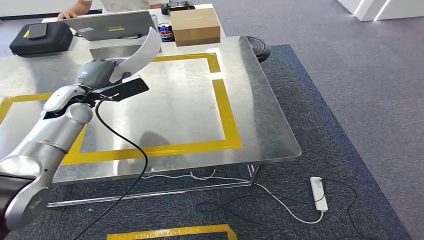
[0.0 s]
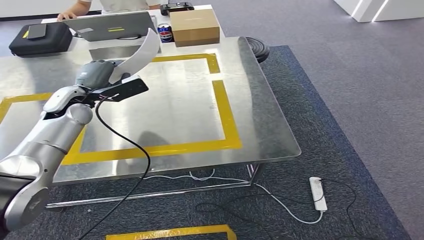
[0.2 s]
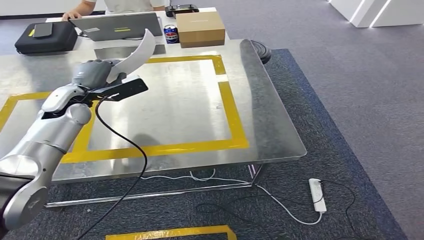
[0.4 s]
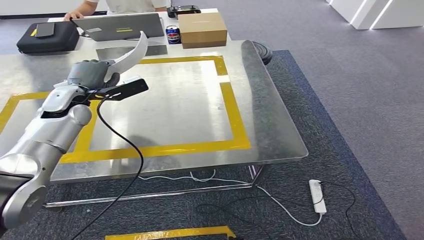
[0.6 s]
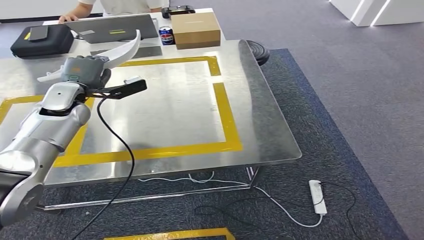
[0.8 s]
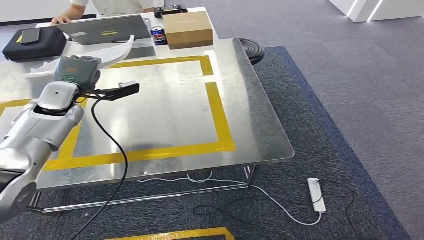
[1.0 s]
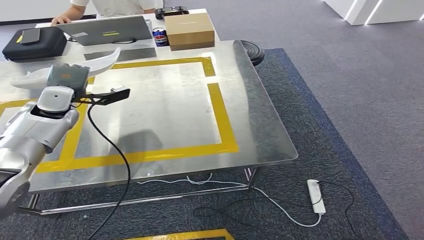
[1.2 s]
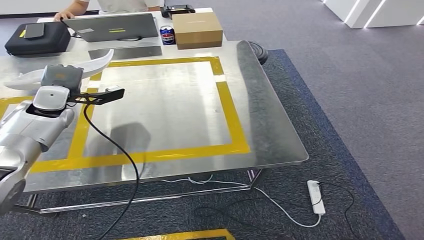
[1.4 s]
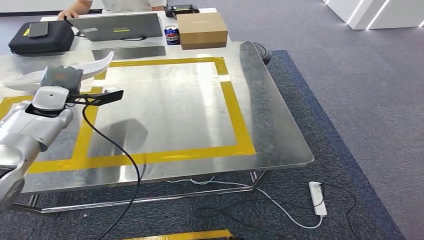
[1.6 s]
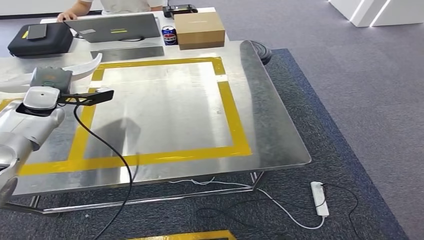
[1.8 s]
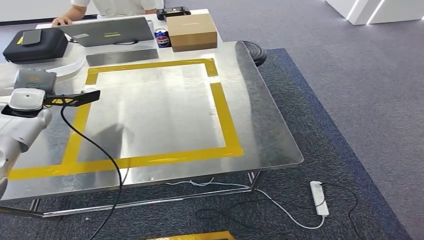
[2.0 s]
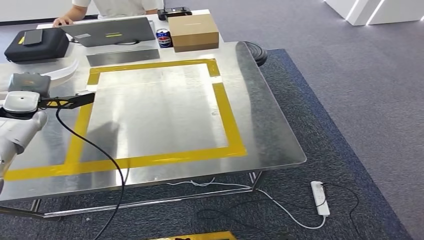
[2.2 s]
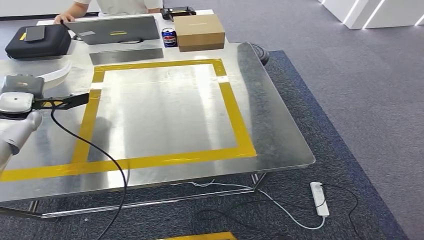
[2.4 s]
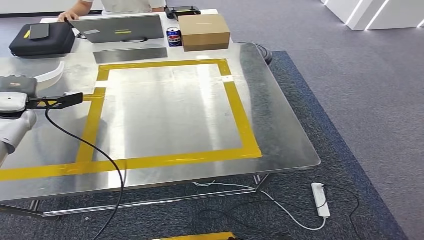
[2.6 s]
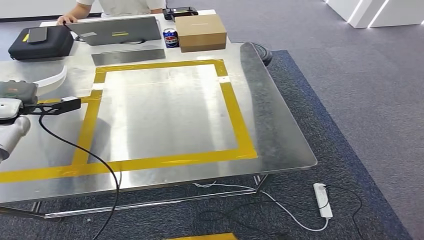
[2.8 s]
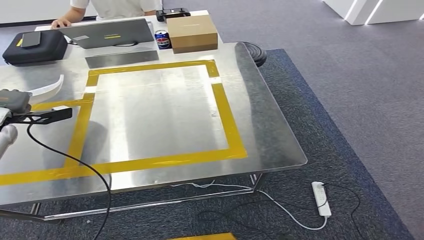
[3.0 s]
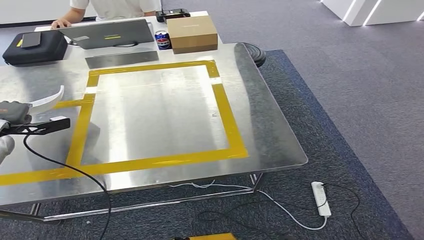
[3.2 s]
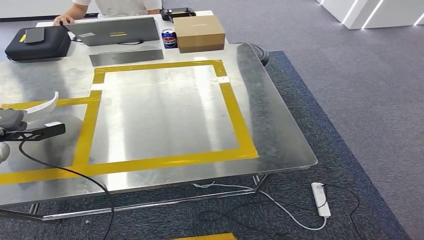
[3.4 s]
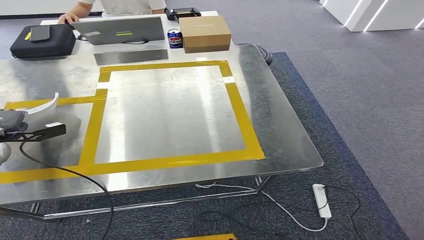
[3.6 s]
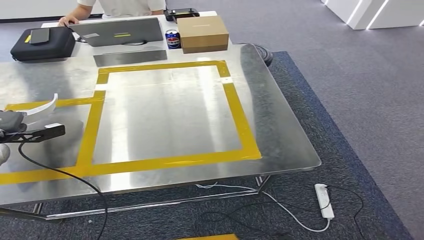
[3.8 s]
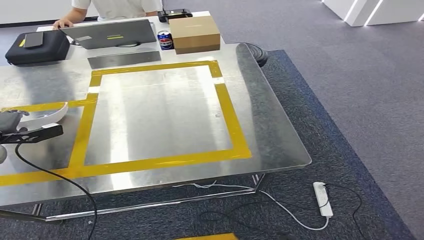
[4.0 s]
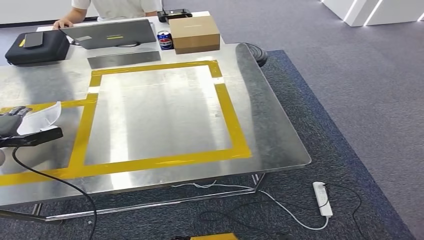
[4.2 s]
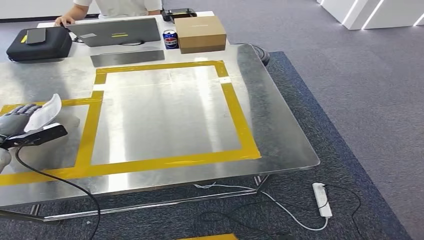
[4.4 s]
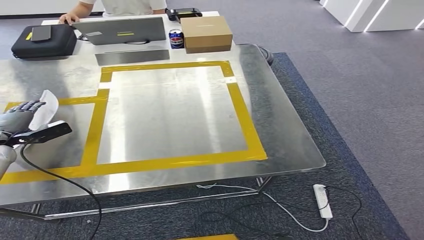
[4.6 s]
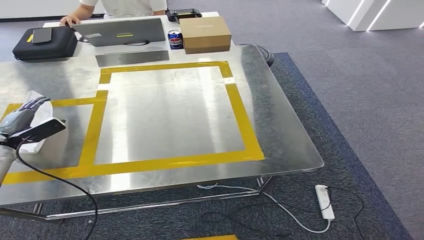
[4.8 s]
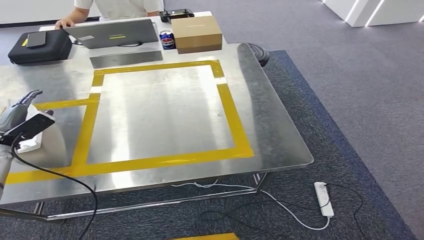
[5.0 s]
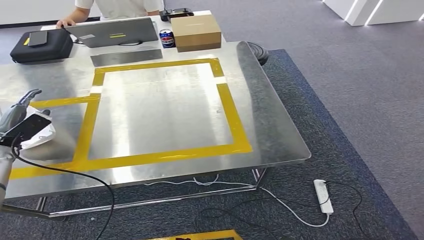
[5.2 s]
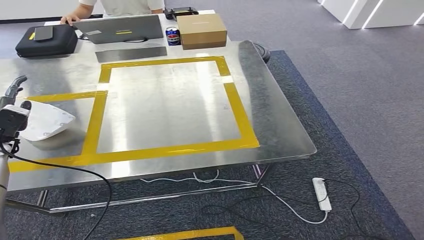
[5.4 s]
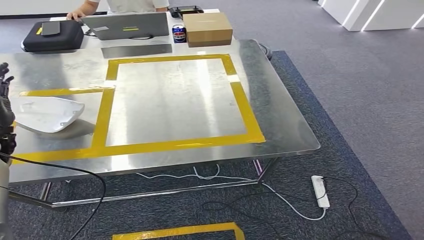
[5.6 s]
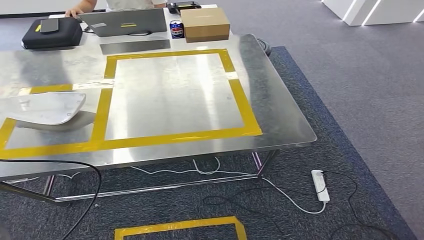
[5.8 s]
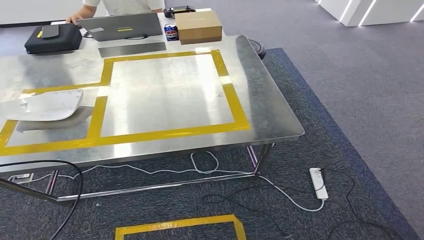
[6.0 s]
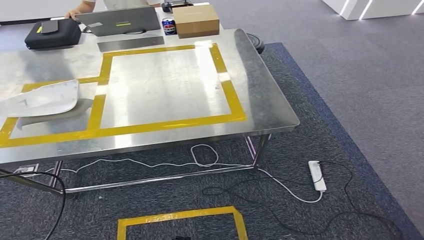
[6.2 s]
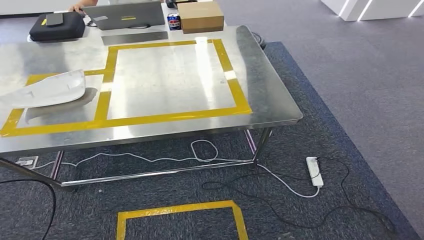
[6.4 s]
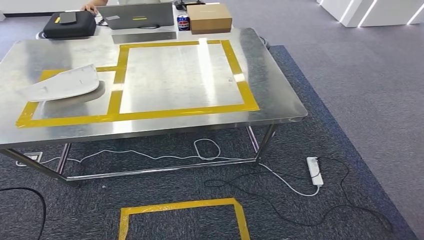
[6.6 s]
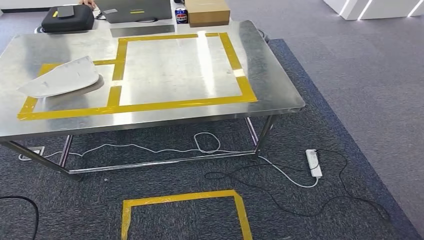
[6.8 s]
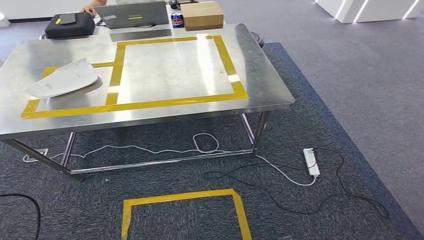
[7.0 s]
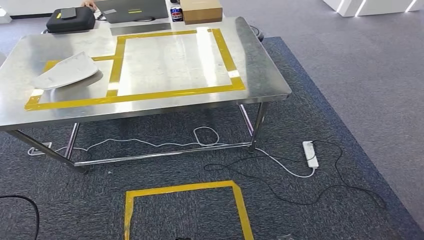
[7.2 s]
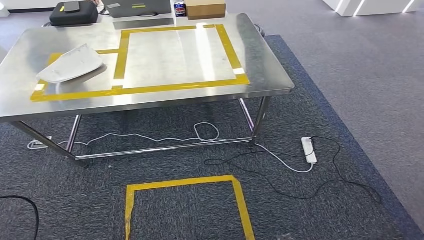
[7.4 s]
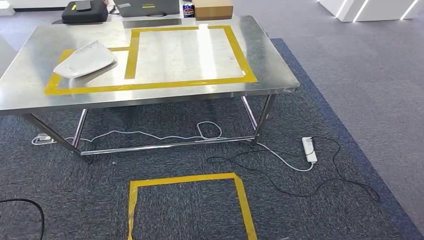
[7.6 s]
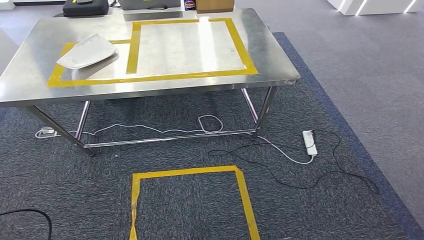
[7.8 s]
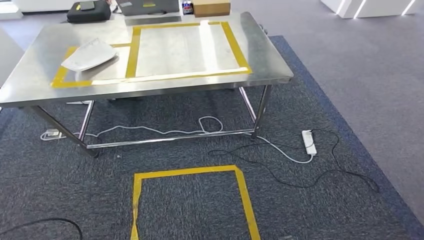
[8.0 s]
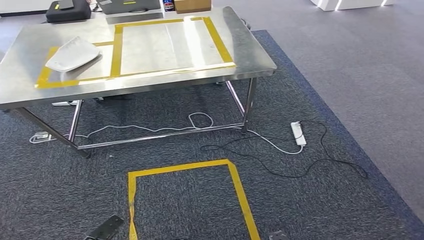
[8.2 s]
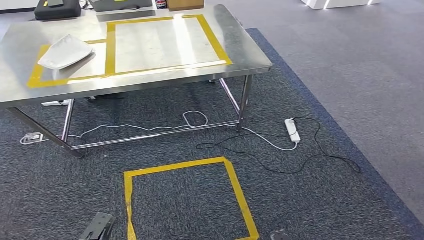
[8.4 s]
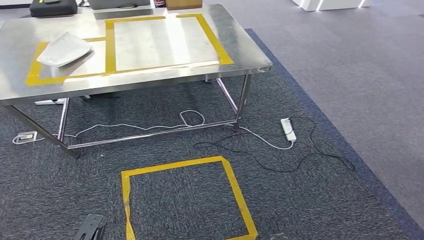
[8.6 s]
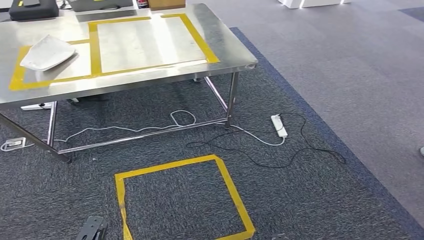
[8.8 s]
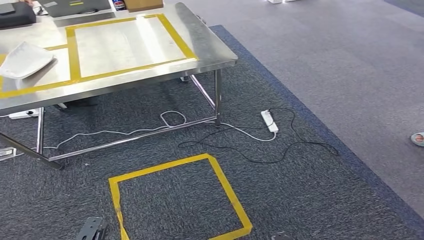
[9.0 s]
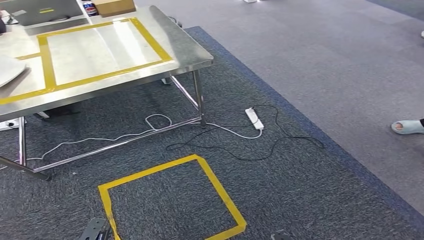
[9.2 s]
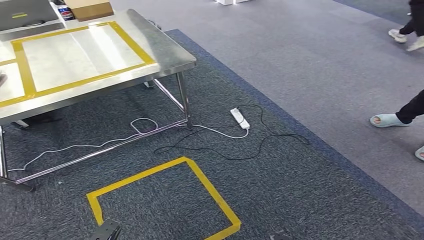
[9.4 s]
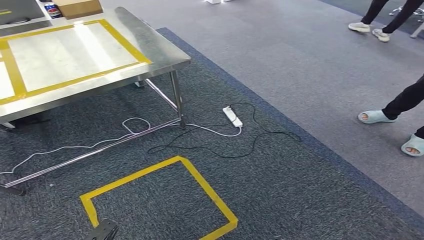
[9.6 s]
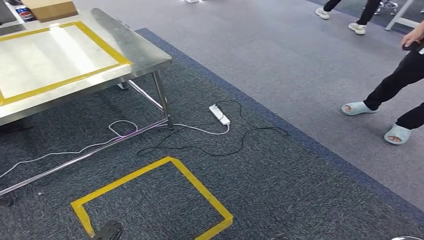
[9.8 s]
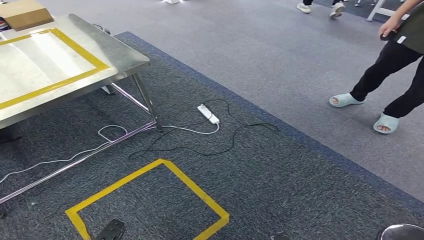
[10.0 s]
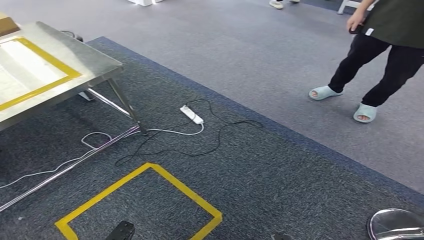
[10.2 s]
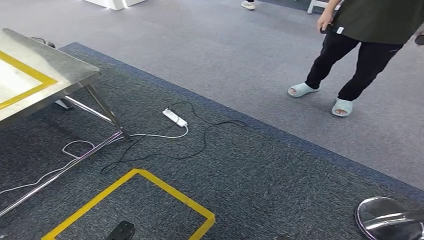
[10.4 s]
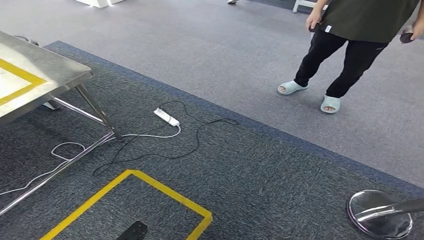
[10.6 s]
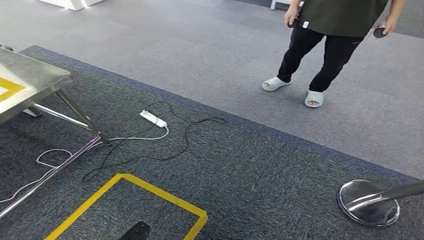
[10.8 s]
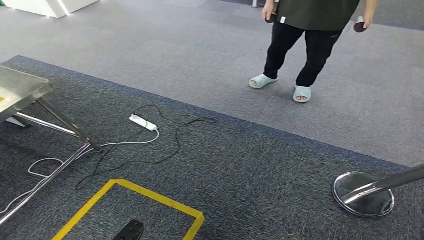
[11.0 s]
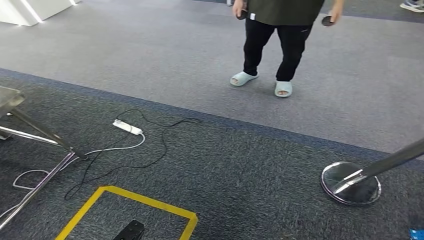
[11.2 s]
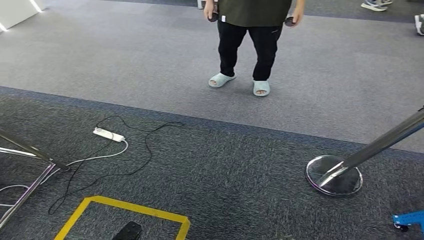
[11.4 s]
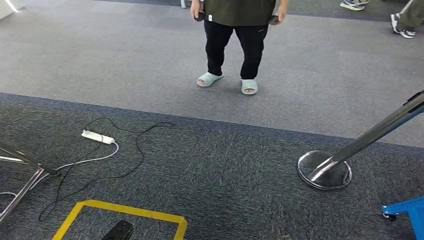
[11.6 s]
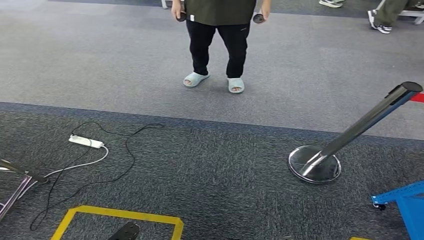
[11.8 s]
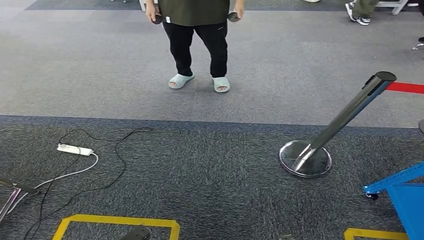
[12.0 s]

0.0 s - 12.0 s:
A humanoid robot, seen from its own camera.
Step, 0.0 s - 7.2 s: Insert the small parts into the corresponding holes on the workbench.

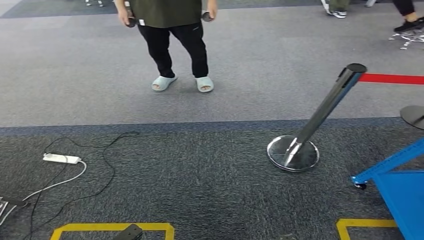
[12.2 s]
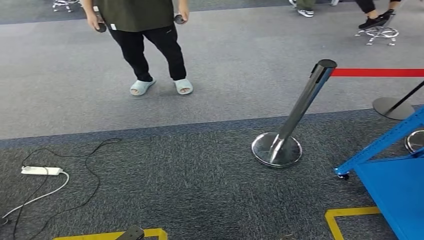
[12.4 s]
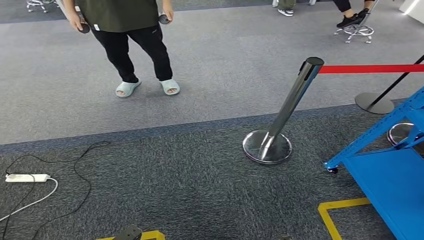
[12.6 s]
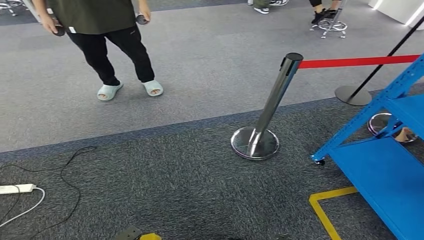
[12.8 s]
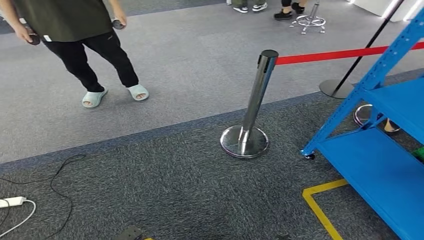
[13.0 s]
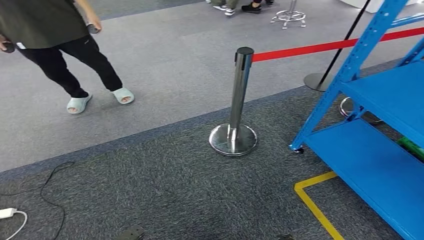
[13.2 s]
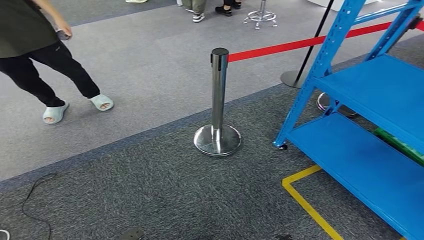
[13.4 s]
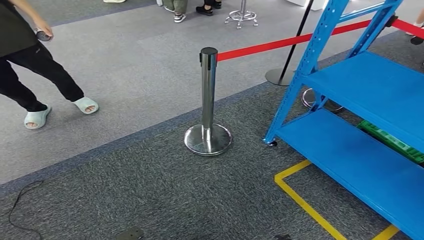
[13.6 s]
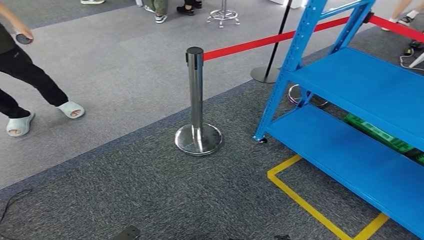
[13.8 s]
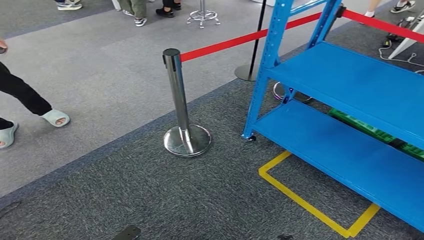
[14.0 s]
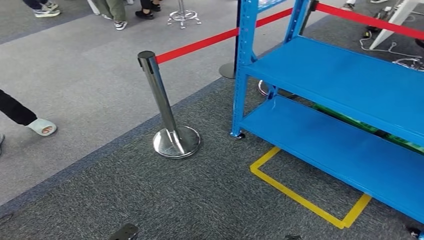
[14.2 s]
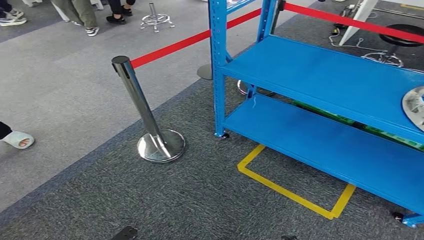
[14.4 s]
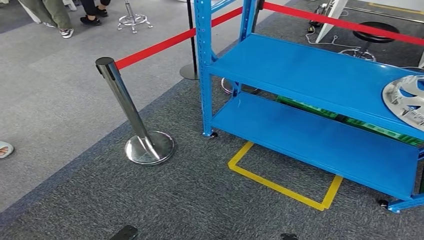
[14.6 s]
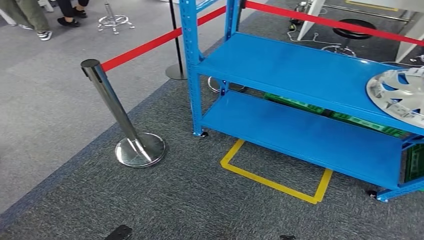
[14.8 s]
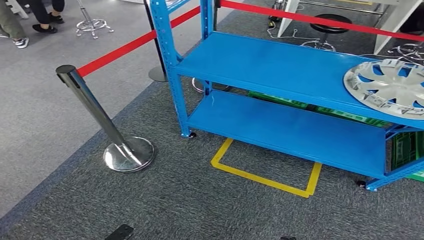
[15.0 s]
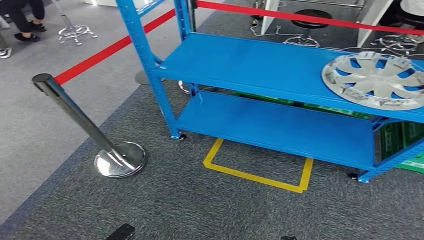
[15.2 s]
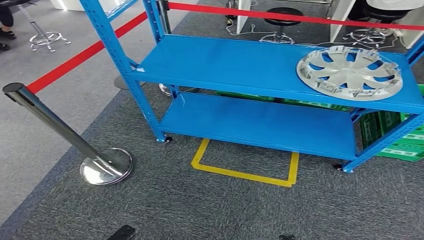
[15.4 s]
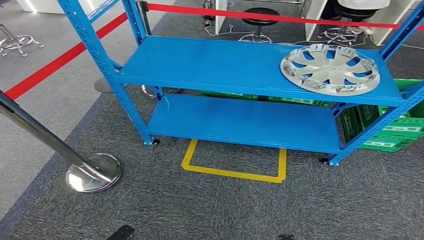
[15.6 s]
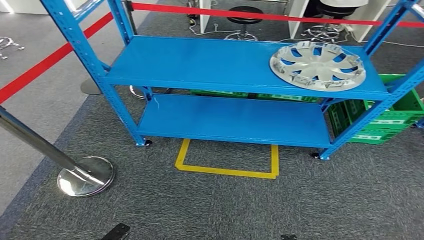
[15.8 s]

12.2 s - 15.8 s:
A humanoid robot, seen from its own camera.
Step, 12.2 s - 15.8 s: Move to the initial position at the workbench.

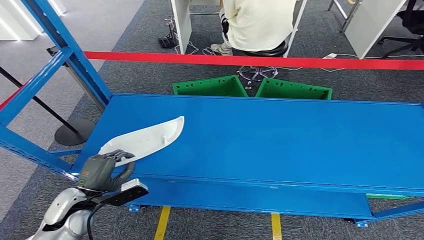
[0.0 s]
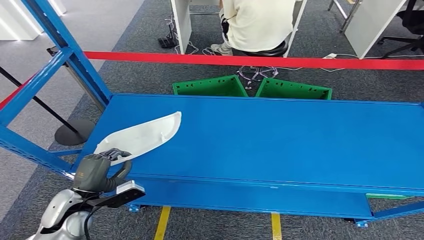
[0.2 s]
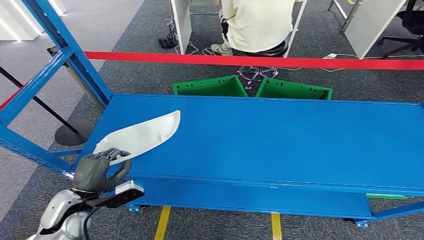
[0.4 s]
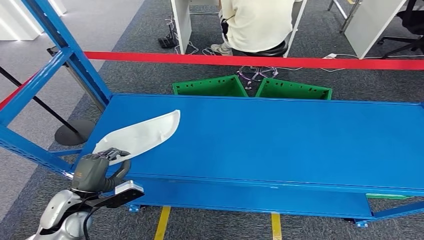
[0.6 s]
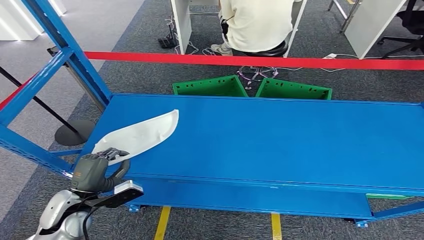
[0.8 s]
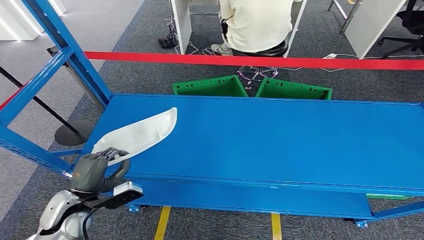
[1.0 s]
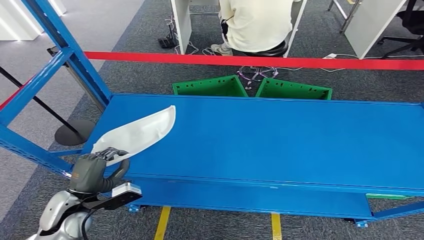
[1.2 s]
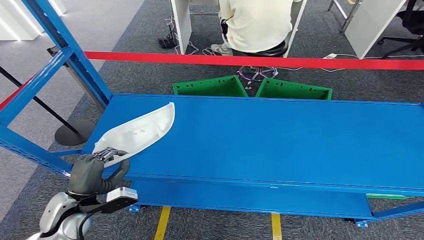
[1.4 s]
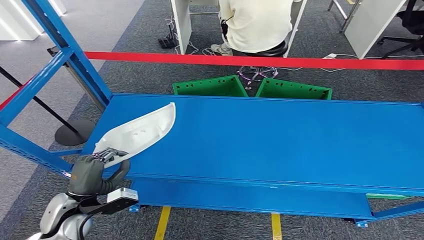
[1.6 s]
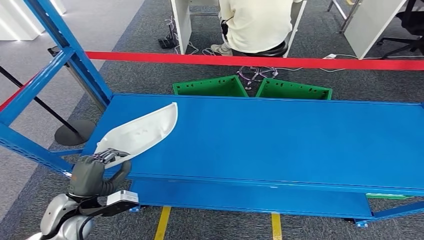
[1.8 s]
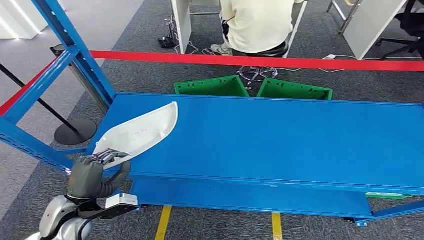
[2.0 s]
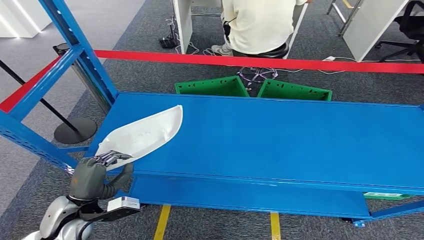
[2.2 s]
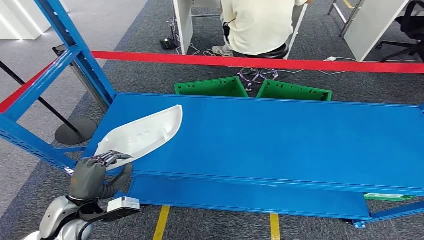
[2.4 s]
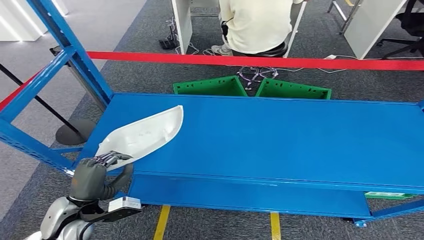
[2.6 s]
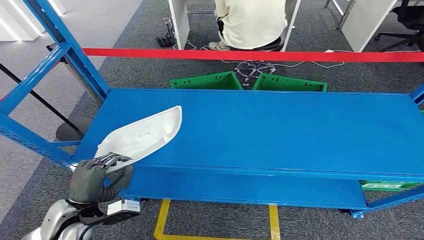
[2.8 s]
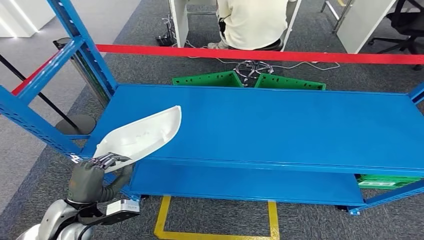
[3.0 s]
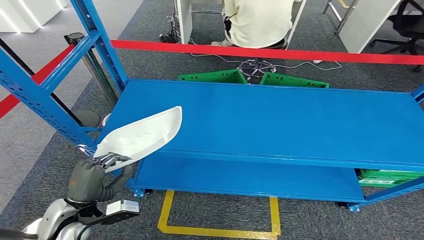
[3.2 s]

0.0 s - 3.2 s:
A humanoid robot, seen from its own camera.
0.0 s - 1.6 s: The hands stay close to where they were, moving slightly.
